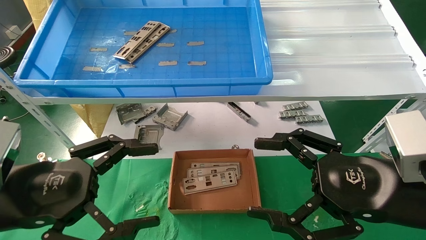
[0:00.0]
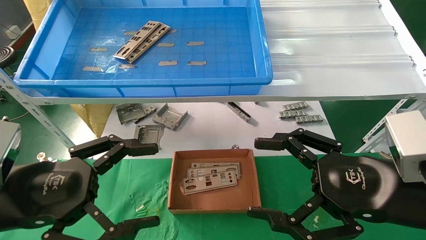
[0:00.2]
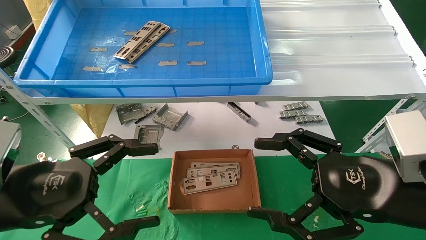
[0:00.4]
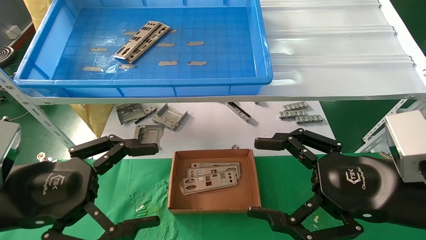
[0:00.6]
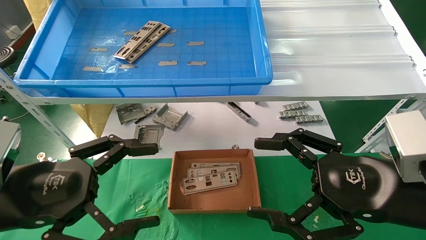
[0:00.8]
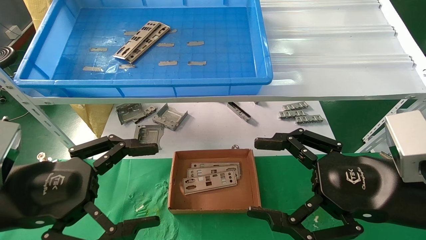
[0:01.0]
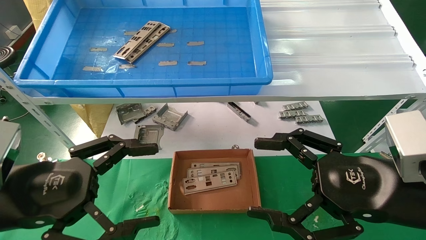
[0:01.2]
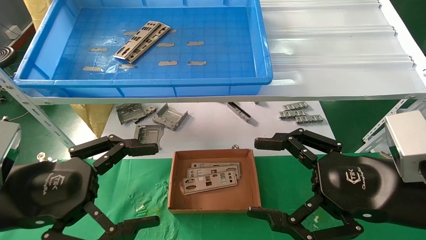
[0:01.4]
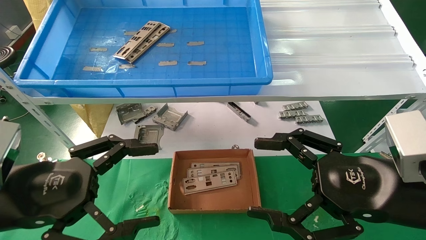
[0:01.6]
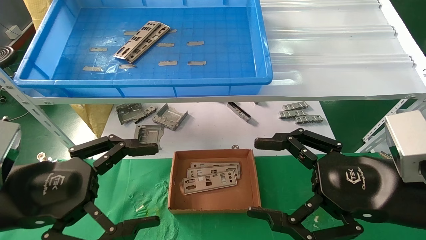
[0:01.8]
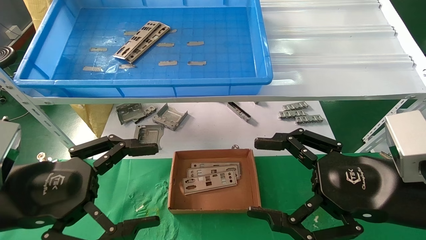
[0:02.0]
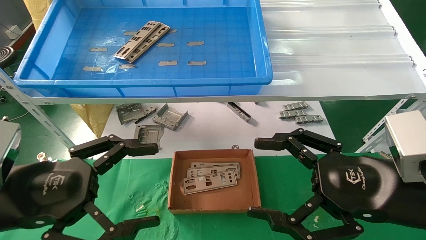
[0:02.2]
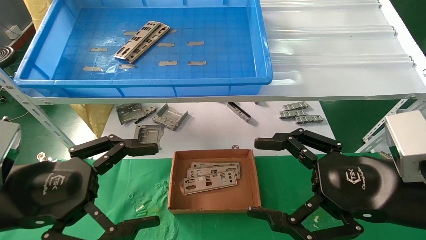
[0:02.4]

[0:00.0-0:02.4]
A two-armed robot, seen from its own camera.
Task of the whole recording: pick up the parts on the tray and put them in the cardboard box.
0:00.0 to 0:02.4: The two grippers keep their place.
